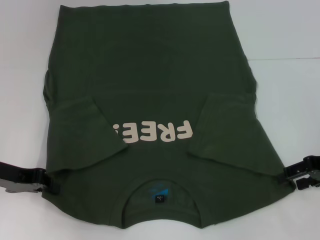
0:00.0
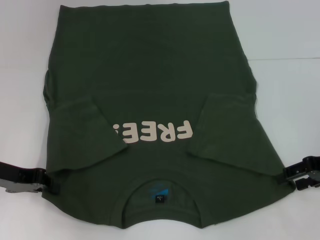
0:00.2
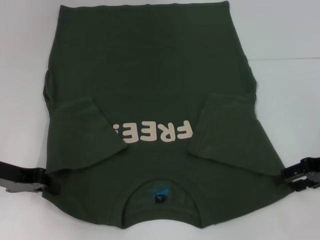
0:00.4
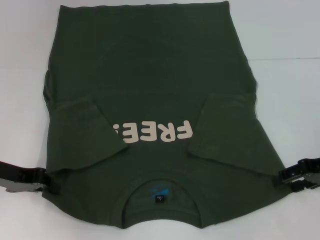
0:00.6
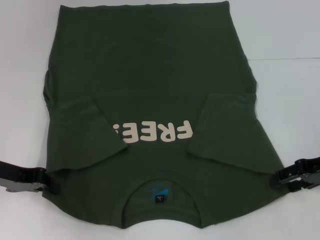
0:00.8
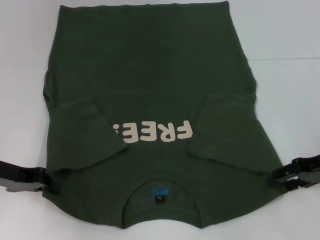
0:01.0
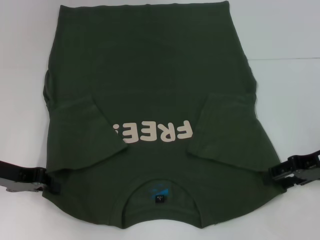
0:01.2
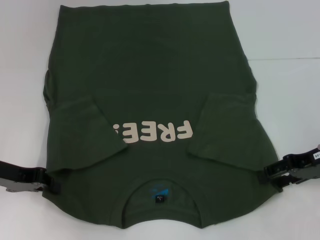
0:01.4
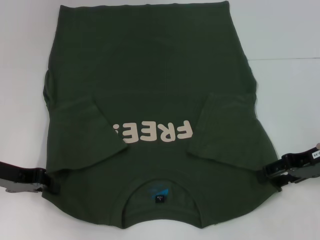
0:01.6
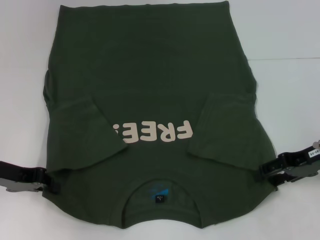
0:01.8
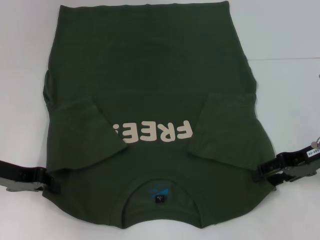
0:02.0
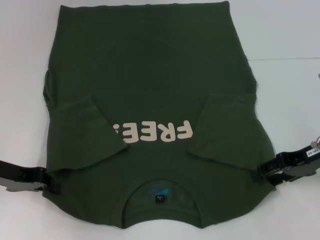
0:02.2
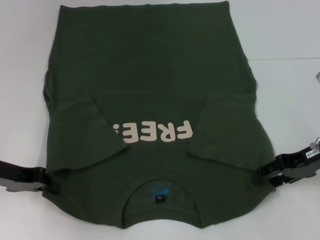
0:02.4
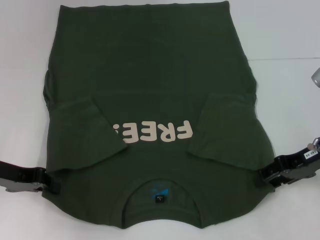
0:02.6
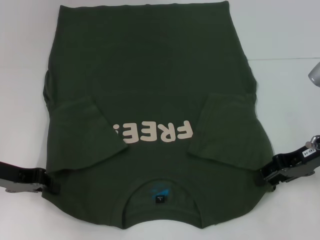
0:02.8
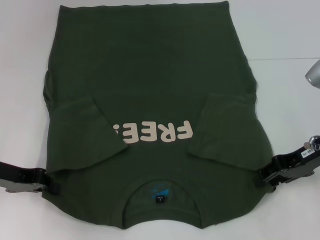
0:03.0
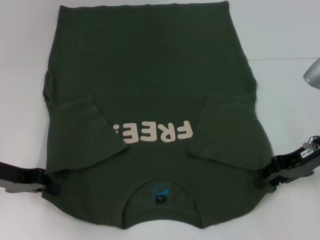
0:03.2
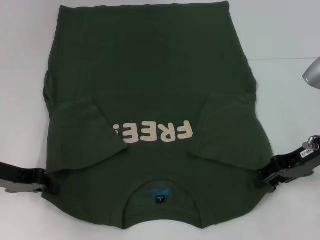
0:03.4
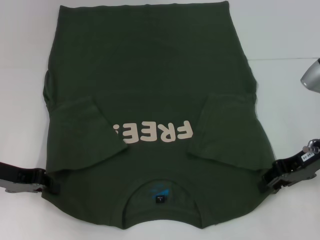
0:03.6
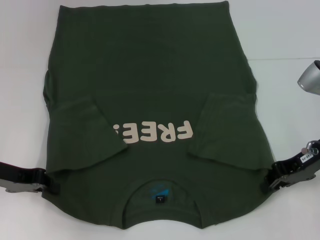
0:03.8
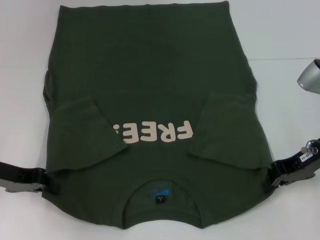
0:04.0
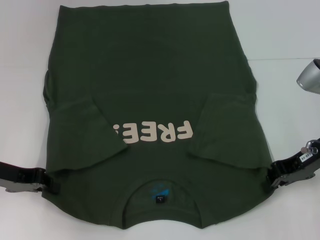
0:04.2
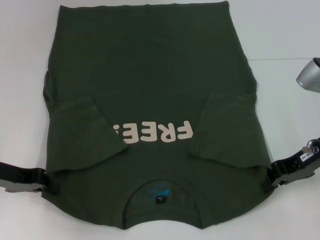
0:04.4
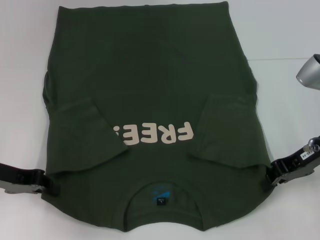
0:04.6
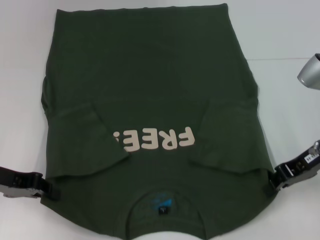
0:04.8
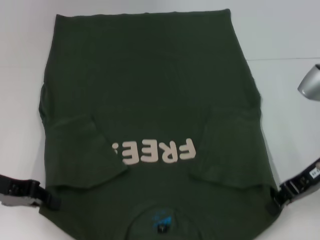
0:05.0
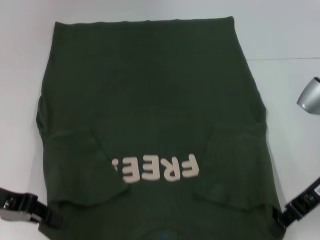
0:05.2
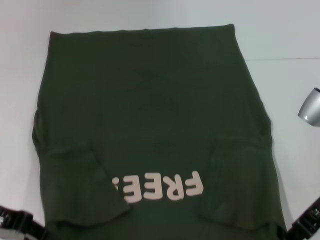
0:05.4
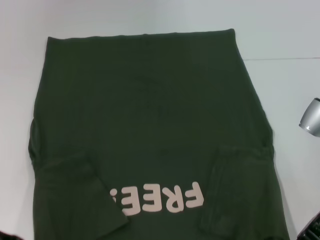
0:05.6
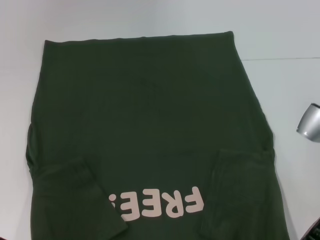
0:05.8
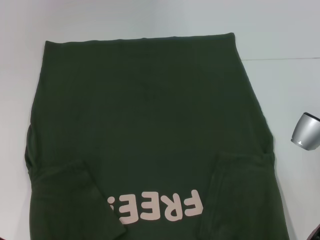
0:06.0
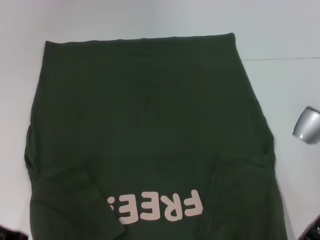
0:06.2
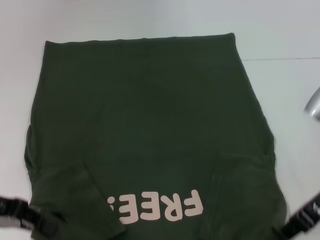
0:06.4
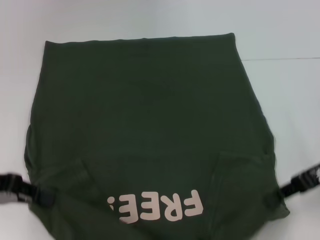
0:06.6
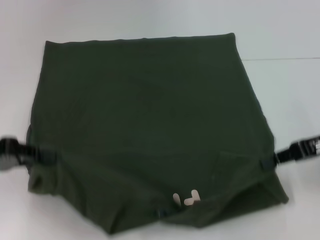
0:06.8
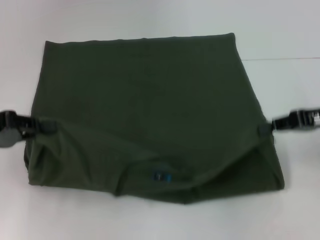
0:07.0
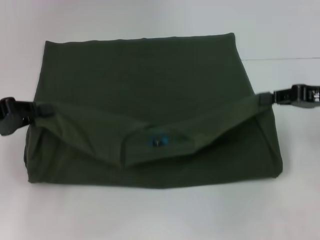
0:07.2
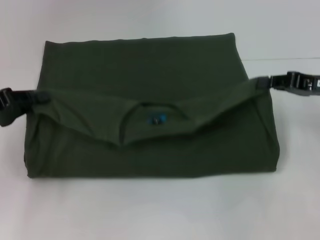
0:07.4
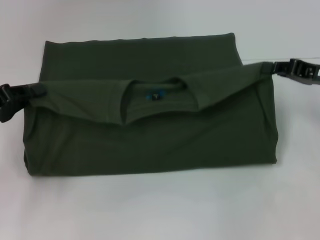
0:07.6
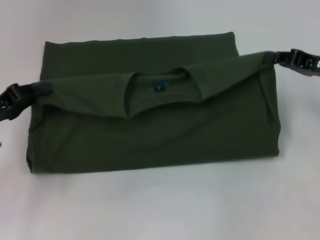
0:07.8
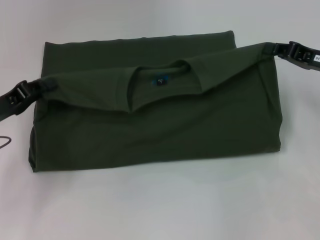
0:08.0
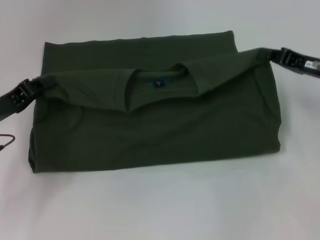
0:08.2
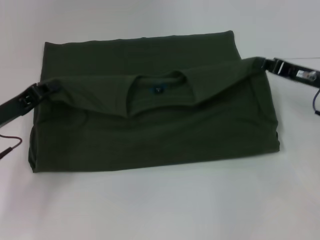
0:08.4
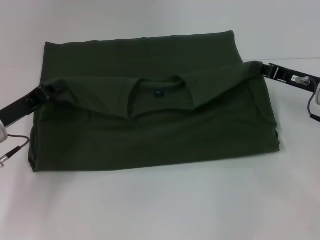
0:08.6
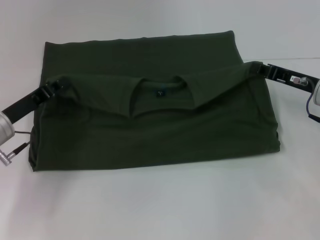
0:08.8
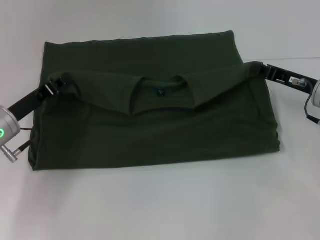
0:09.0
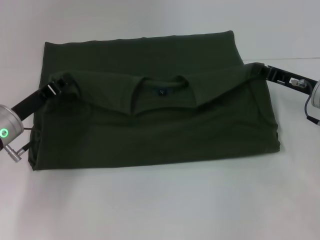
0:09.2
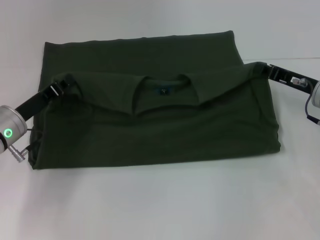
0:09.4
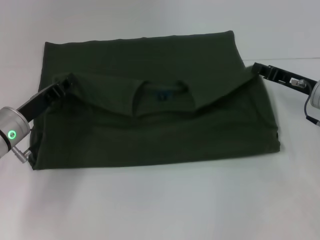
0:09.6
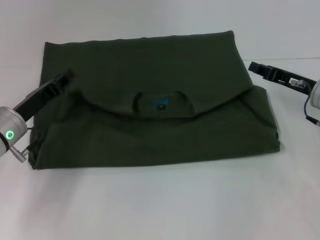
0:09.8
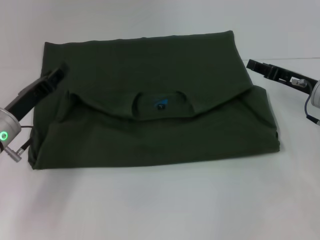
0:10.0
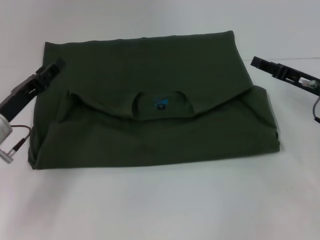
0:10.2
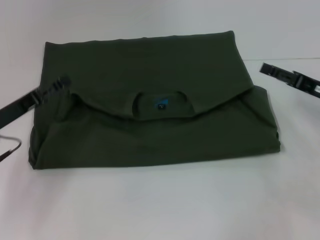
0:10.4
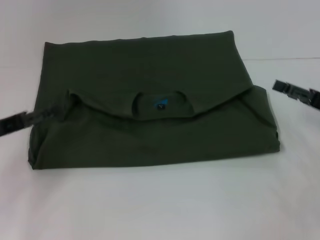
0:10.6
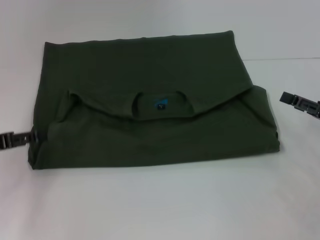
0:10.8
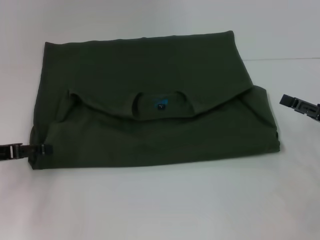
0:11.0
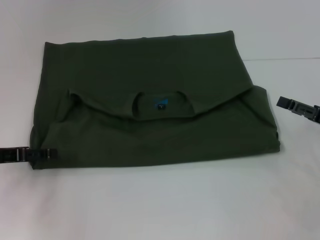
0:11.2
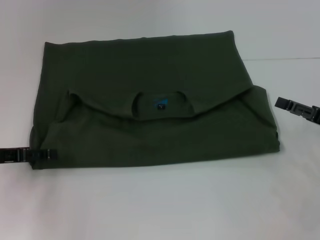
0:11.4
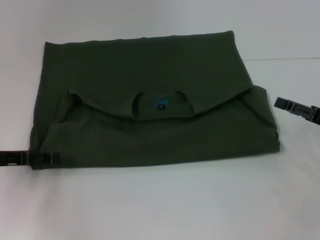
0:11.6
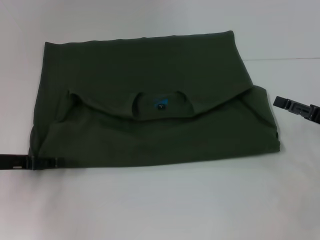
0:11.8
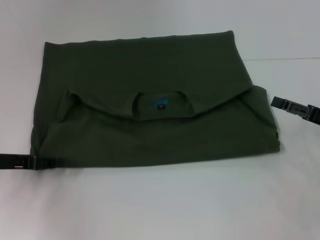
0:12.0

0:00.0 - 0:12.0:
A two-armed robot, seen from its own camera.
Step, 0:00.0 - 0:04.2: Grab the bottom right corner with your right hand.
Step, 0:04.4 - 0:10.2: Fold the clothes with your left hand.
Step, 0:04.4 - 0:10.2: Fold the clothes with your right hand.
0:00.0 - 0:03.0: The grippers move only a little.
0:03.0 - 0:04.4: The right gripper closes.
0:04.4 - 0:06.0: The two grippers go some 5 cm backward.
0:06.0 - 0:07.6: The left gripper moves some 5 cm, while the right gripper shifts roughly 10 cm forward and to the right.
0:07.6 - 0:09.0: The left gripper is displaced to the right by about 5 cm. Meanwhile the right gripper ends up roughly 5 cm from where it was.
0:09.0 - 0:10.4: The left gripper opens up, while the right gripper opens.
0:10.4 - 0:12.0: The right gripper changes place by about 5 cm.

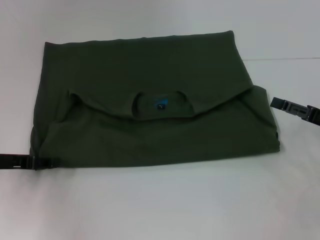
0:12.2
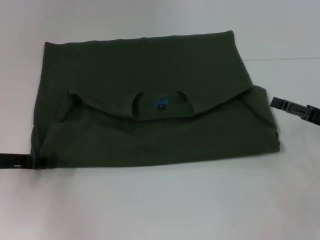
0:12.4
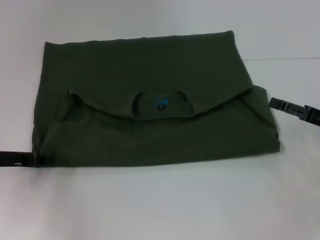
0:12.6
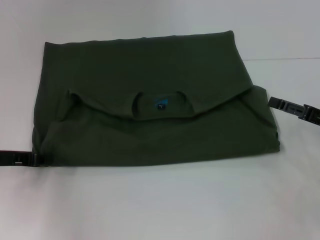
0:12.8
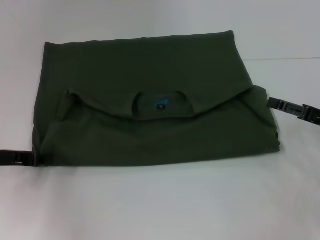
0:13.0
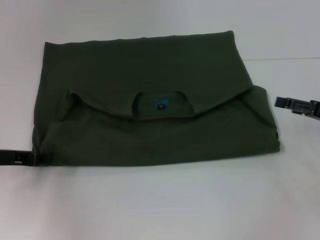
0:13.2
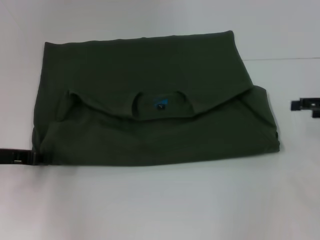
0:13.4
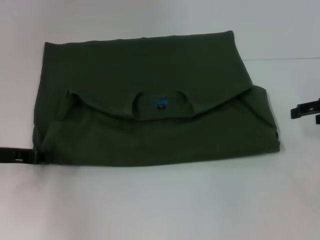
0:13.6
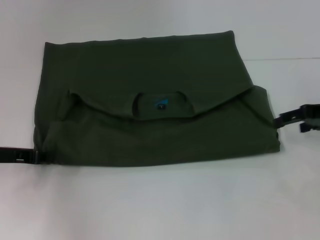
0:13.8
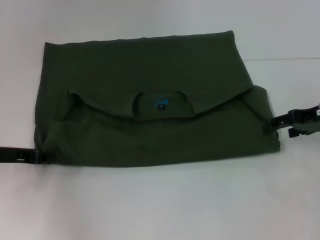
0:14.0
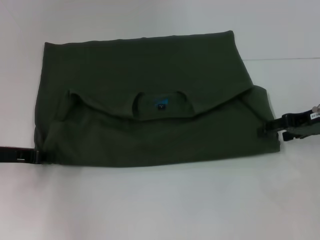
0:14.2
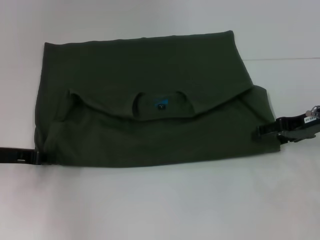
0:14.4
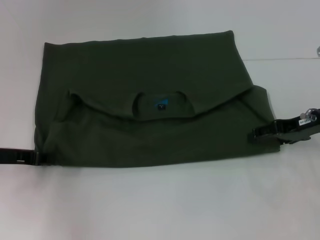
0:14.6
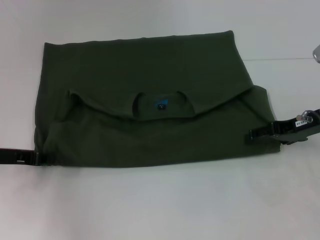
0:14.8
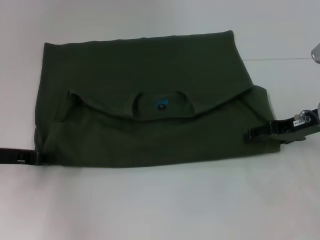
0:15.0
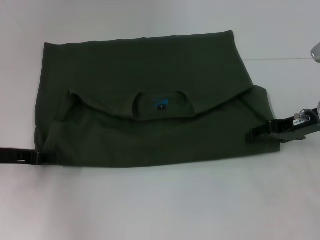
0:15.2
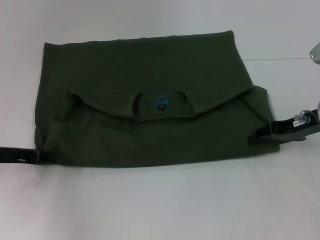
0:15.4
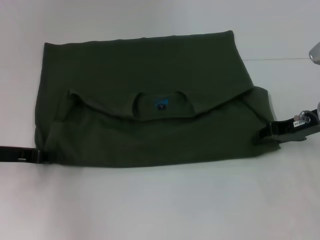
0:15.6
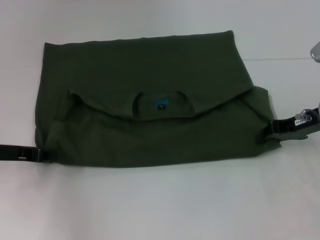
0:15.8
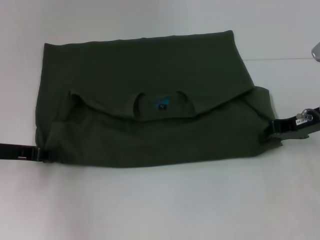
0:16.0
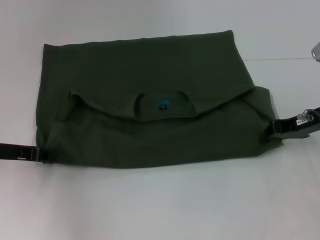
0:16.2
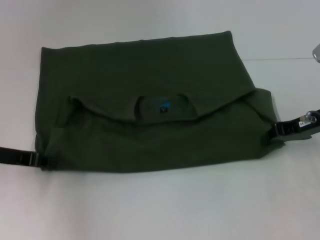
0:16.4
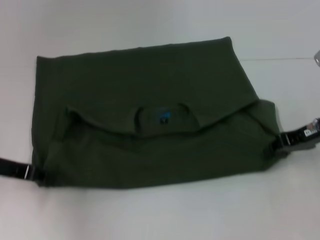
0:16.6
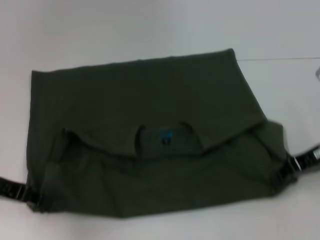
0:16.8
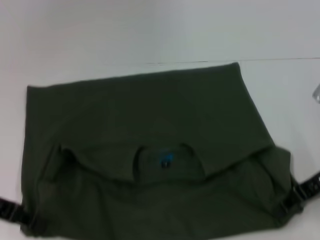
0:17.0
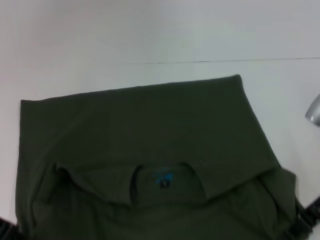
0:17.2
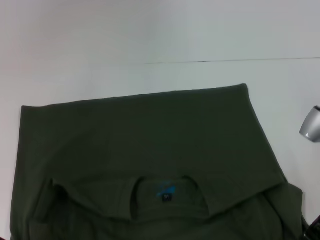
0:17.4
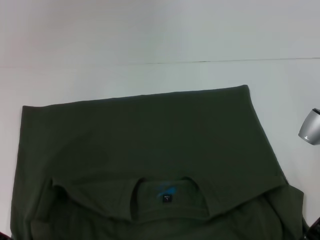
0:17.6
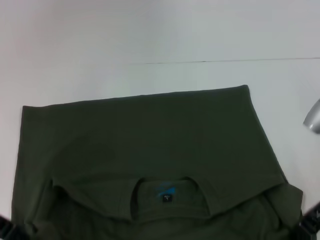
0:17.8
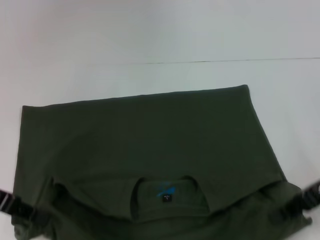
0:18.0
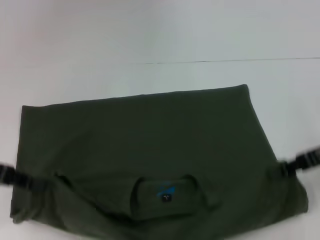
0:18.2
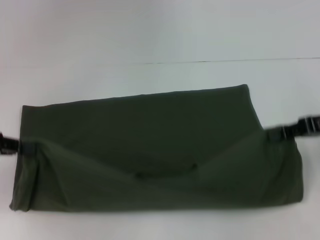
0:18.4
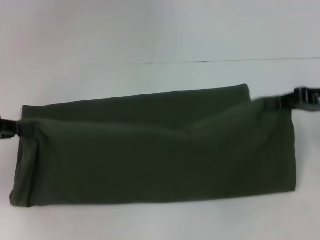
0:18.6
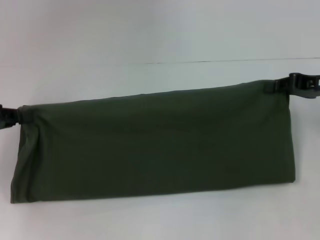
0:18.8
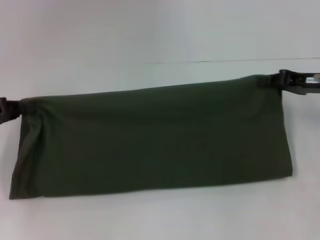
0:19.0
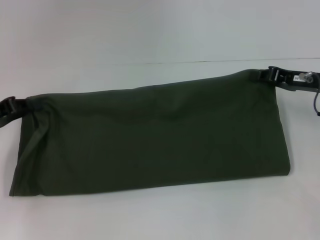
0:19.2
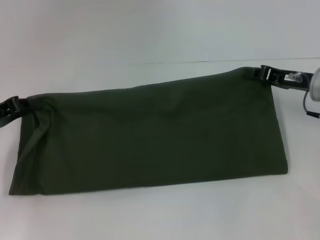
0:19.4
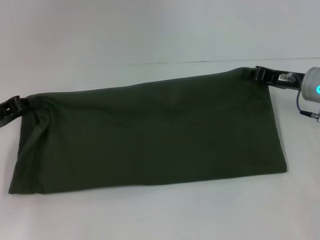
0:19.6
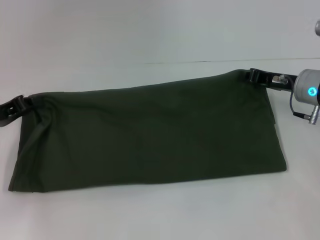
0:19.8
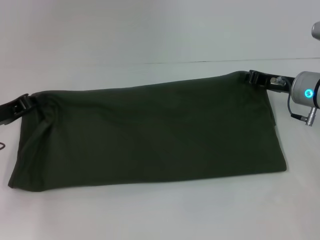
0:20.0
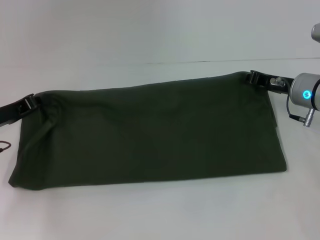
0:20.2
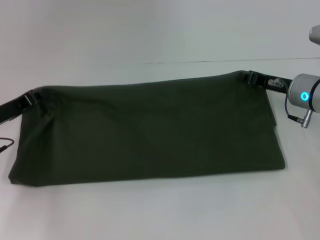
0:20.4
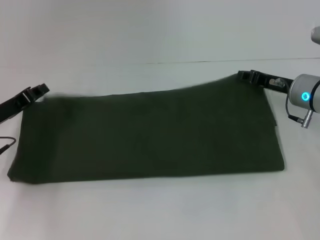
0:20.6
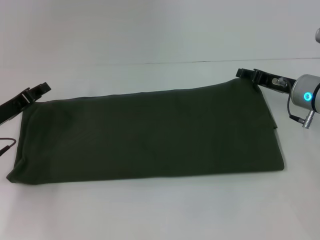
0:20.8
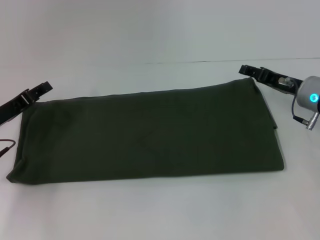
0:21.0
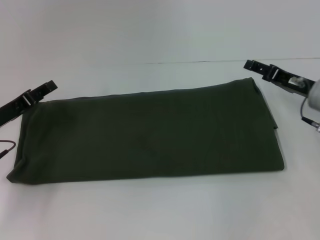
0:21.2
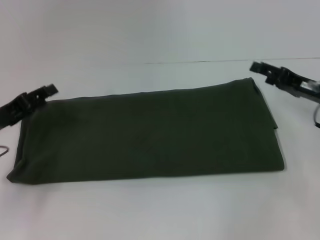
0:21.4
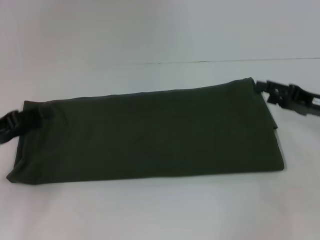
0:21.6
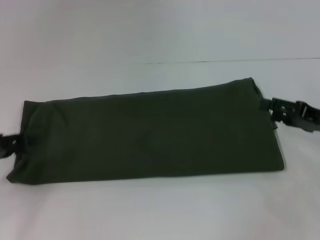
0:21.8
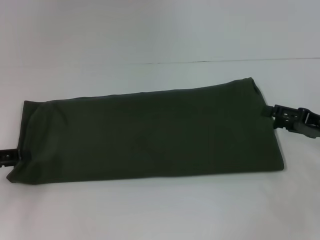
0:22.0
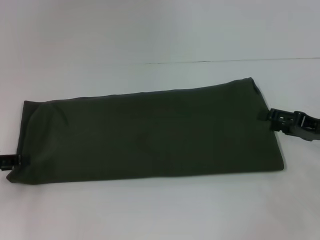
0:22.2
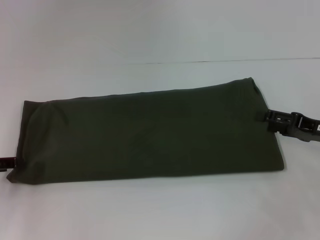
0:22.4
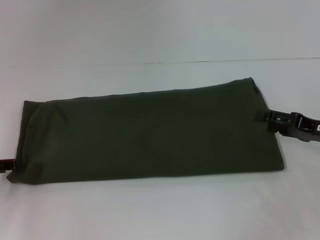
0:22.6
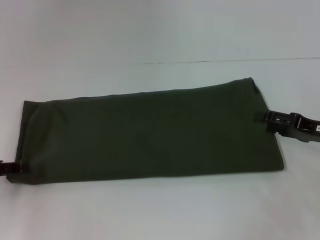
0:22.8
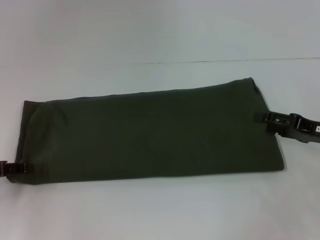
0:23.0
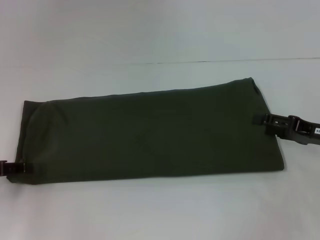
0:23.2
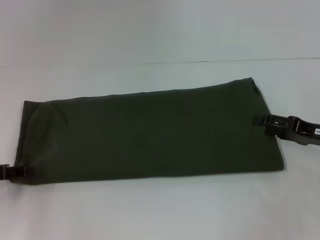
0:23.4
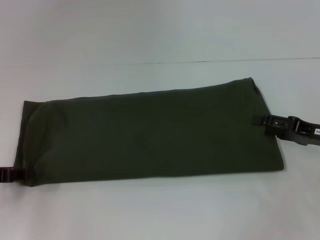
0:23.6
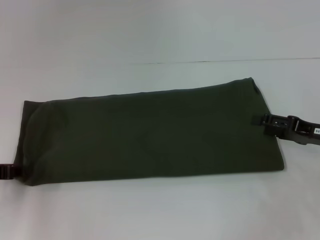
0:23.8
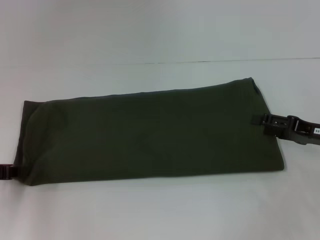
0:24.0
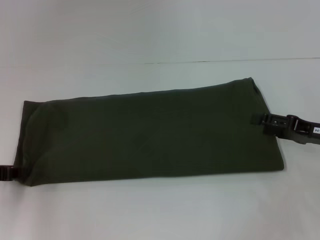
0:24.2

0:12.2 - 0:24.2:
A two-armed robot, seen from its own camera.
Step, 0:12.2 - 0:17.4: Pull the clothes with your left hand.
Step, 0:12.2 - 0:17.4: Pull the clothes with your right hand.
Step, 0:17.6 - 0:21.0: Fold the clothes with your right hand.
0:12.2 - 0:13.8: The right gripper heads upward and forward, covering approximately 10 cm, while the left gripper closes up.
0:13.8 - 0:15.2: The right gripper moves some 5 cm.
0:15.2 - 0:16.6: The right gripper closes its fingers.
0:16.6 - 0:18.2: The left gripper is displaced upward by roughly 5 cm. Meanwhile the right gripper changes place by about 5 cm.
0:18.2 - 0:19.8: The right gripper heads forward and to the left, covering approximately 10 cm. Meanwhile the left gripper moves downward, about 5 cm.
0:19.8 - 0:21.2: The left gripper opens up; the right gripper opens up.
0:21.2 - 0:22.6: The left gripper shifts about 5 cm to the left. Meanwhile the right gripper heads backward, covering roughly 5 cm.
